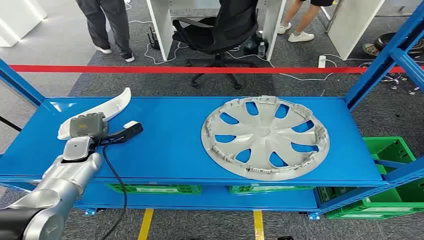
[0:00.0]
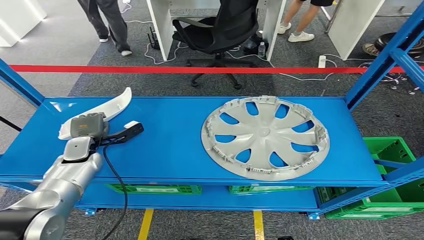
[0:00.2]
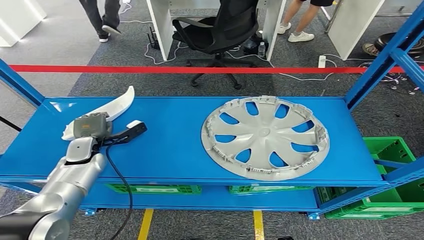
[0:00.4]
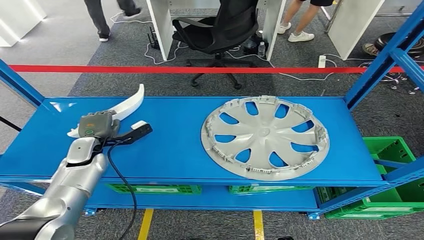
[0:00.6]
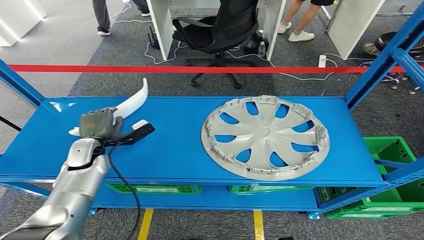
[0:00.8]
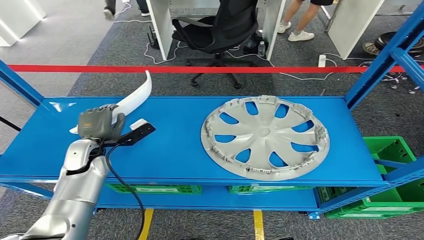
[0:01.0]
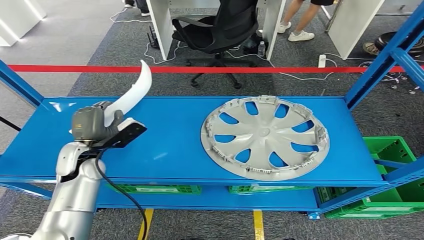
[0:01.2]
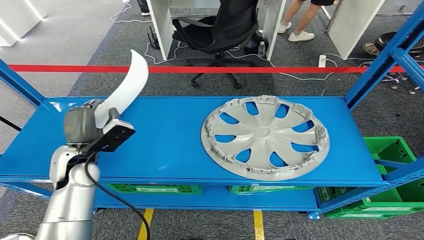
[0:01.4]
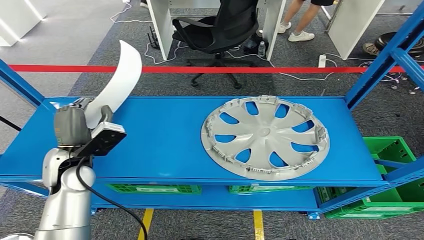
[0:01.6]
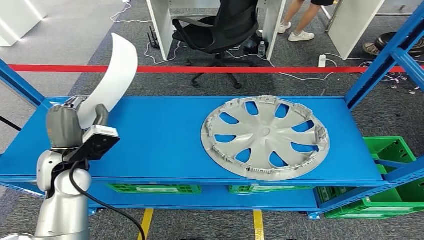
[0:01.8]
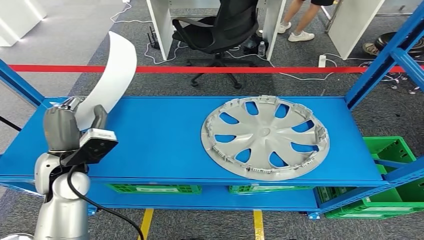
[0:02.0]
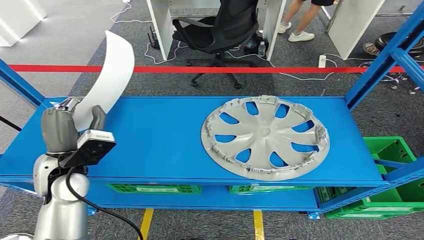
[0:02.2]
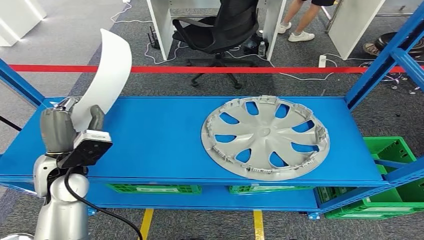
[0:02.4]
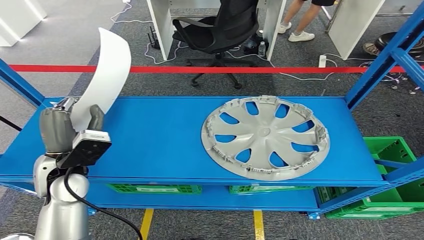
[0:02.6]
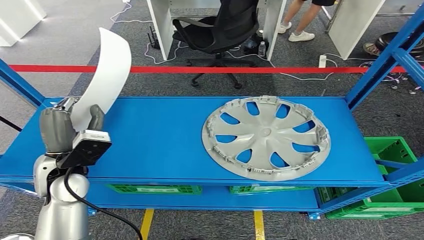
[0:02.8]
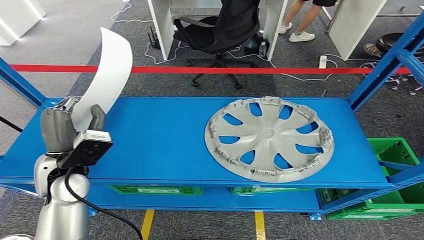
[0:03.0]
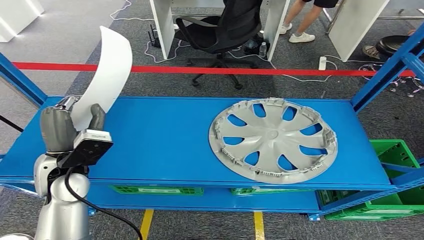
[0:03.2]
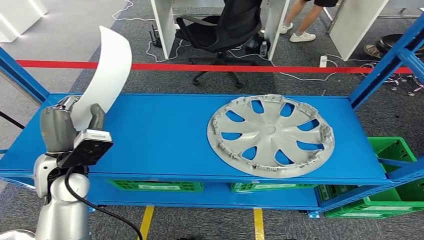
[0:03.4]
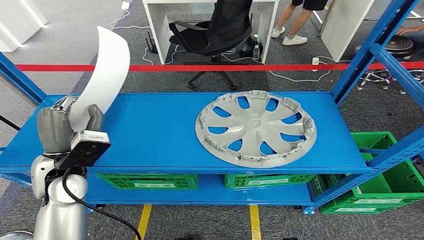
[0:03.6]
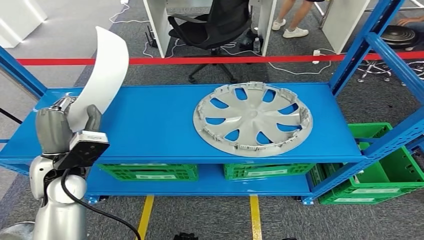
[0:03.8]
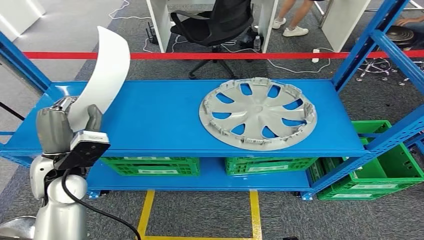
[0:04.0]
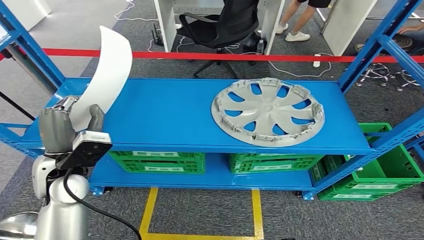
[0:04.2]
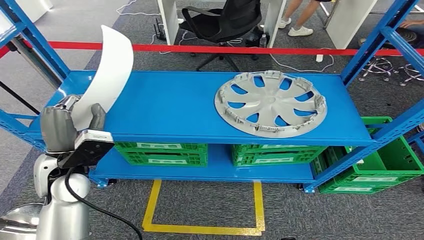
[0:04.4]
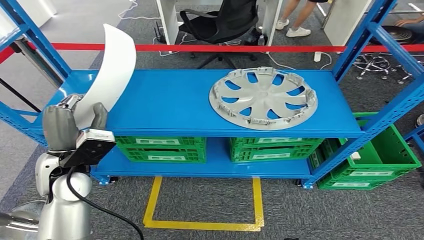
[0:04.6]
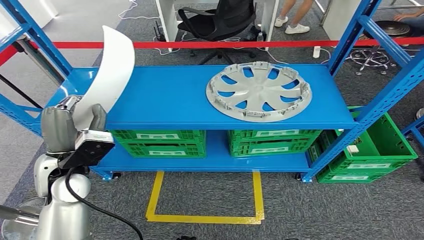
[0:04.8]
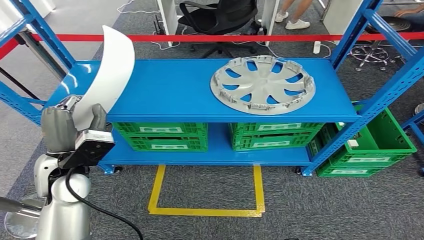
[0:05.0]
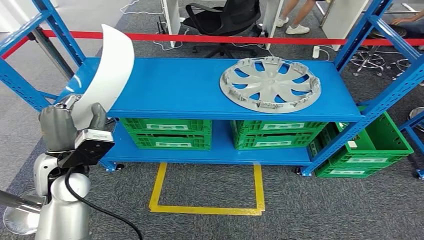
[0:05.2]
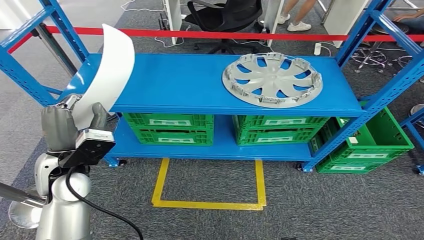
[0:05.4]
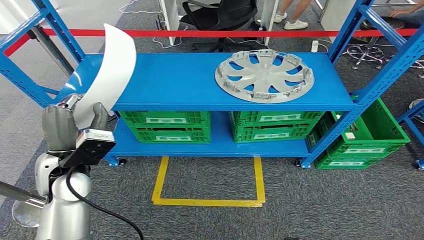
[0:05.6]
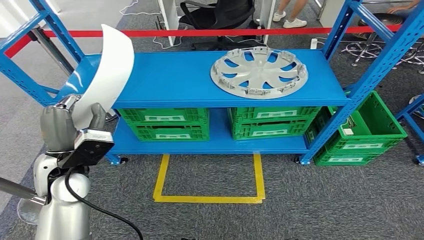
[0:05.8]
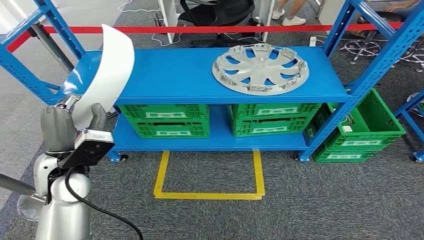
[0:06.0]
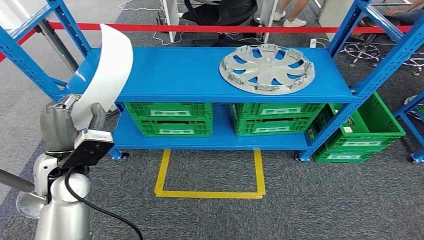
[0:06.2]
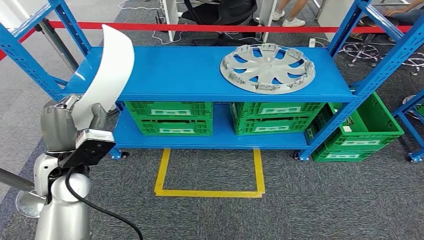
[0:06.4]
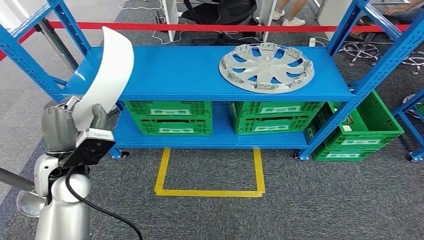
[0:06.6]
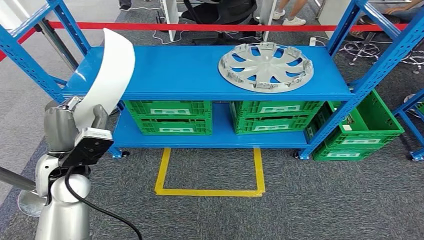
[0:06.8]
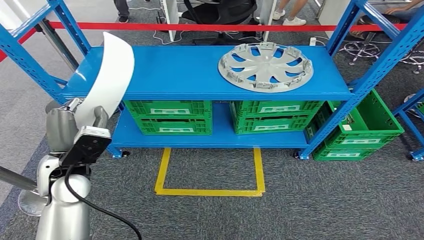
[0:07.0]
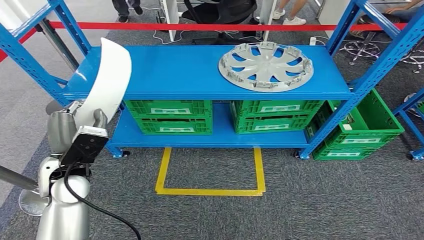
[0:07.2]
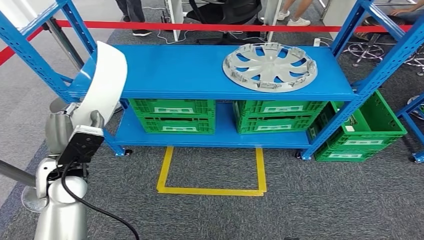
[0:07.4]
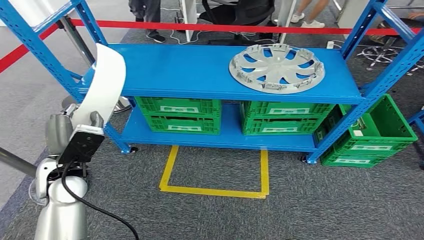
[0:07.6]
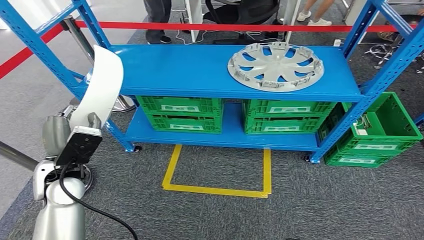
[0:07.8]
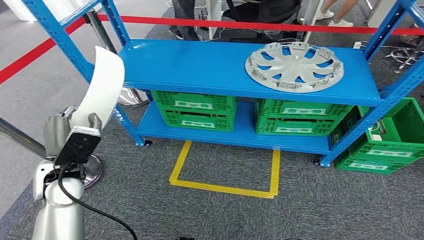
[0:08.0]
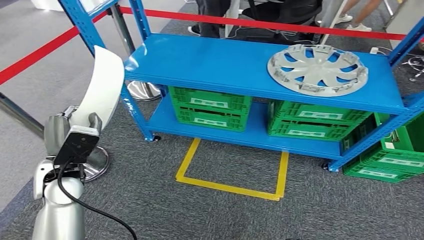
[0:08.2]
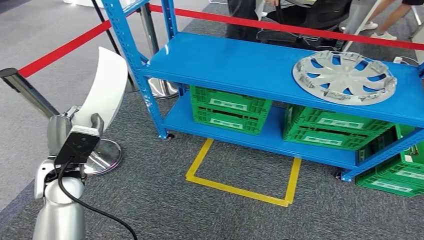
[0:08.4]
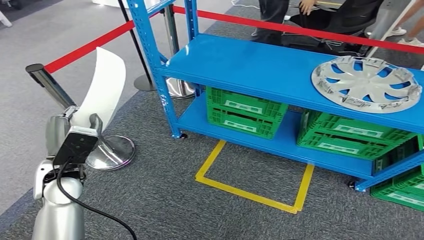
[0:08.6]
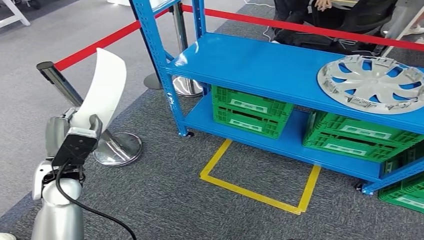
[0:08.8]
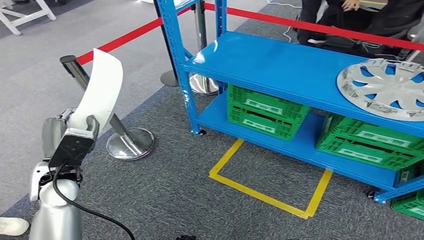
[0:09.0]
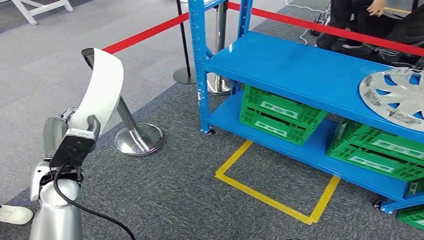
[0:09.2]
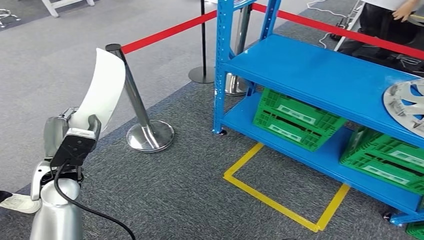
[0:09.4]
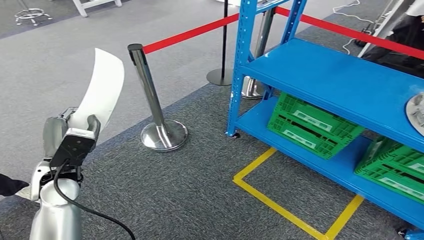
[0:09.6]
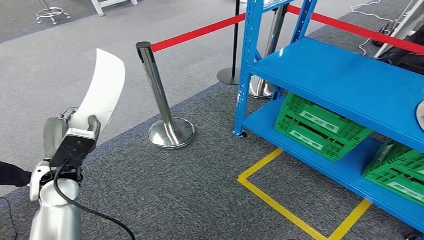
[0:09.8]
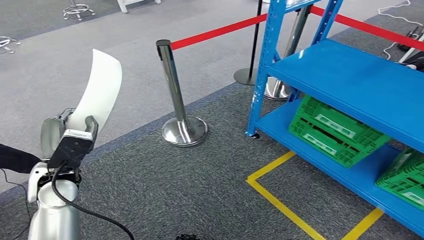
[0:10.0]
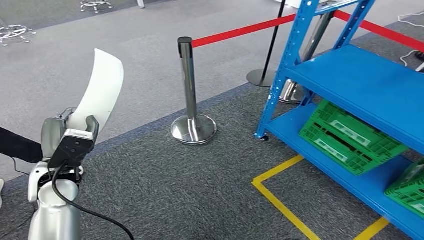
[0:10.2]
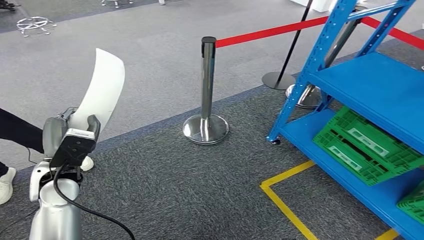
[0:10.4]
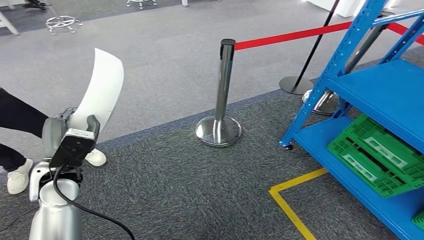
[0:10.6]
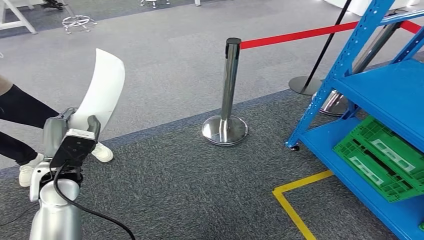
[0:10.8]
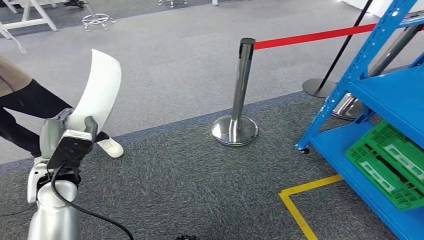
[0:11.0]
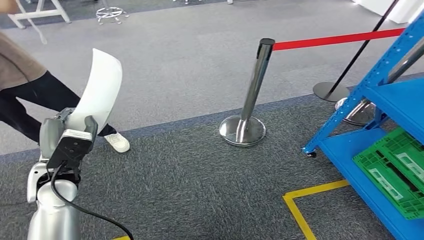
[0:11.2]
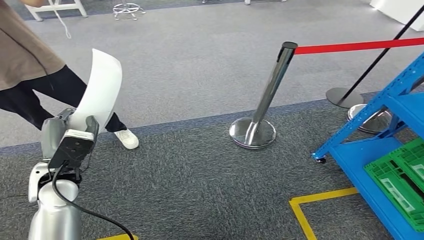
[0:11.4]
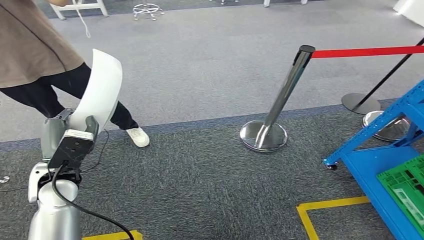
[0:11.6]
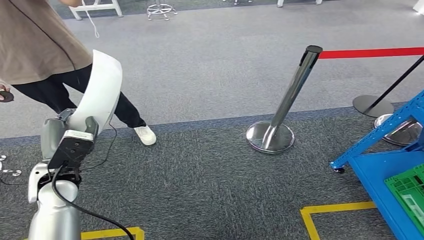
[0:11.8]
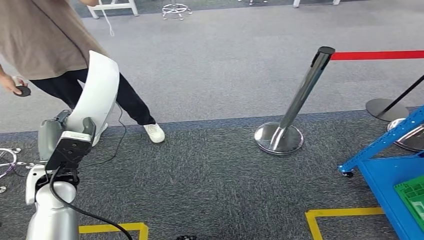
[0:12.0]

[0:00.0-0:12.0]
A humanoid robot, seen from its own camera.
Step, 0:00.0 to 0:06.8: Pick up the small component from the shelf.
0:01.6 to 0:03.0: There are only small adjustments of the hands.

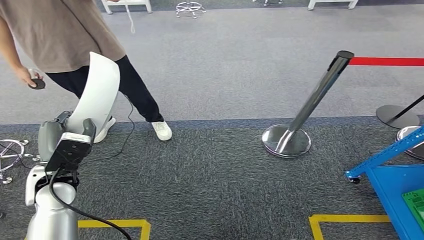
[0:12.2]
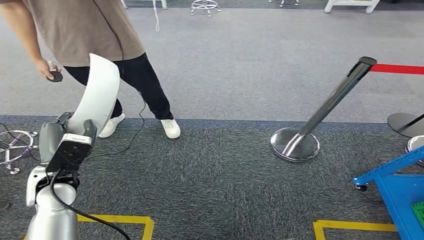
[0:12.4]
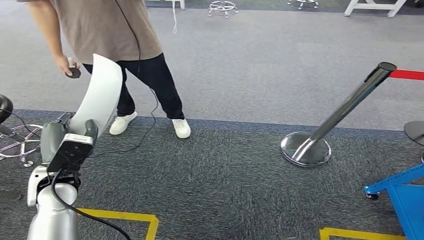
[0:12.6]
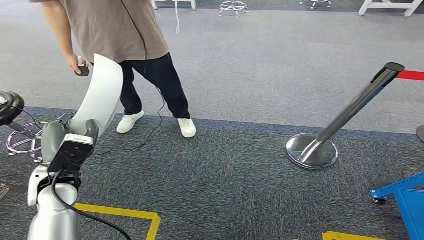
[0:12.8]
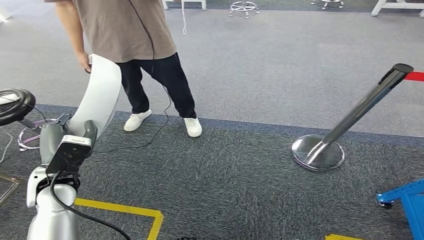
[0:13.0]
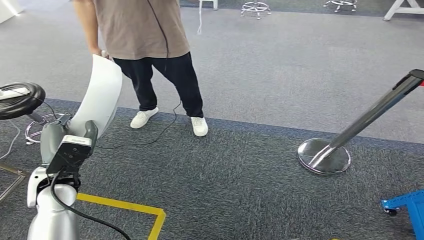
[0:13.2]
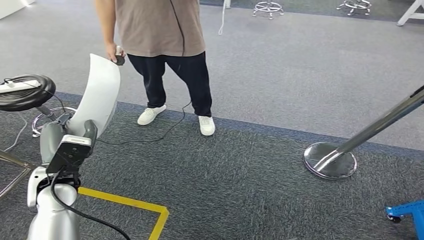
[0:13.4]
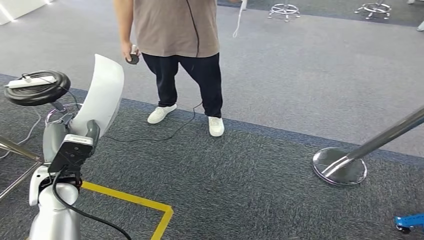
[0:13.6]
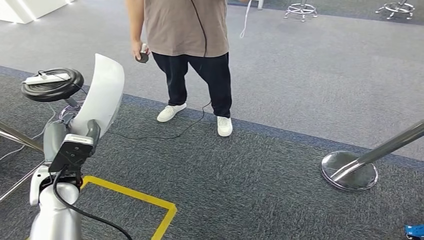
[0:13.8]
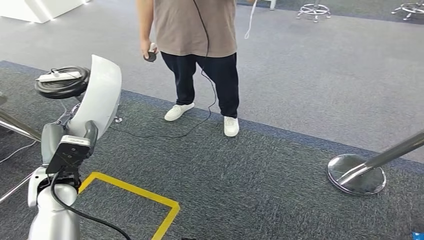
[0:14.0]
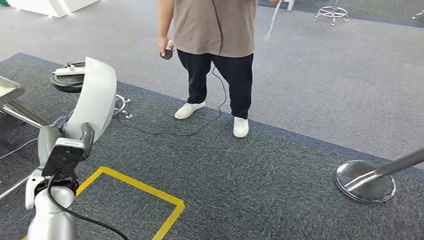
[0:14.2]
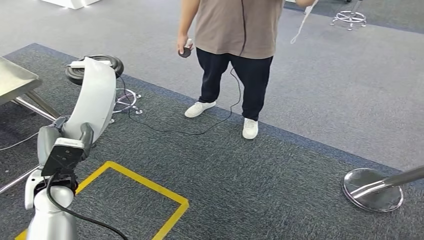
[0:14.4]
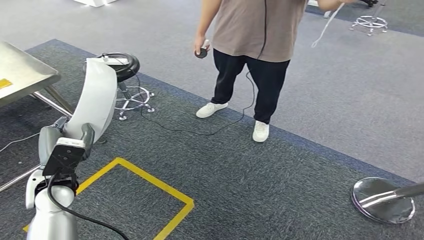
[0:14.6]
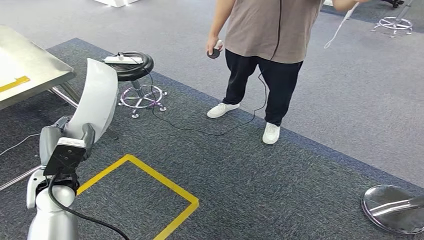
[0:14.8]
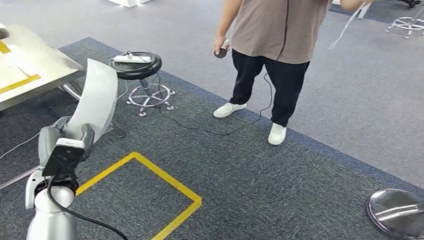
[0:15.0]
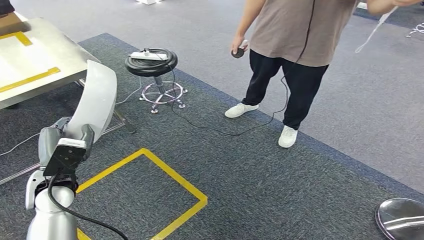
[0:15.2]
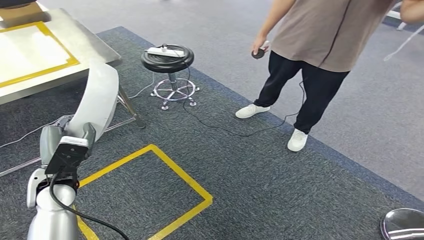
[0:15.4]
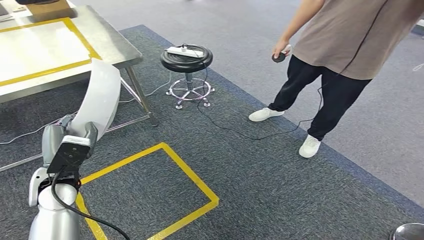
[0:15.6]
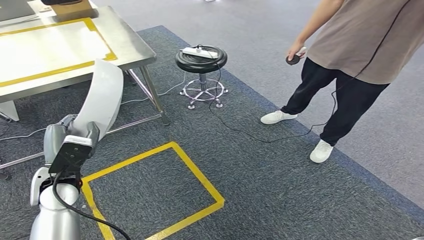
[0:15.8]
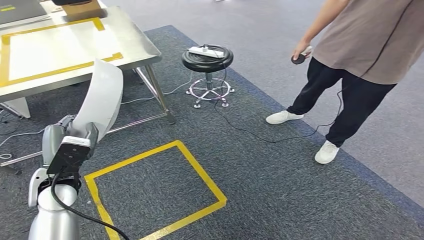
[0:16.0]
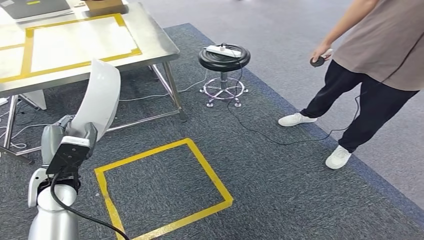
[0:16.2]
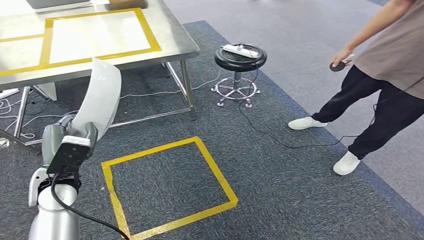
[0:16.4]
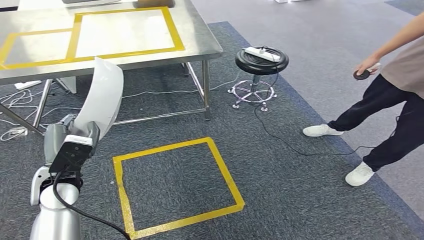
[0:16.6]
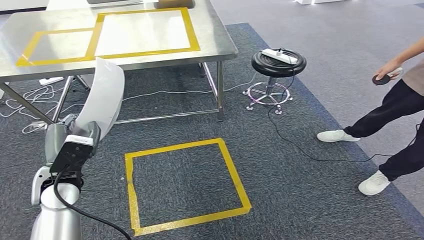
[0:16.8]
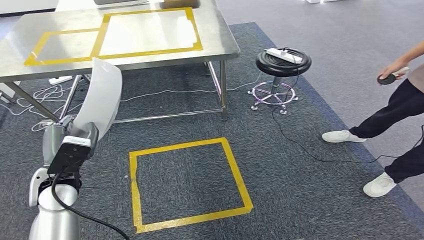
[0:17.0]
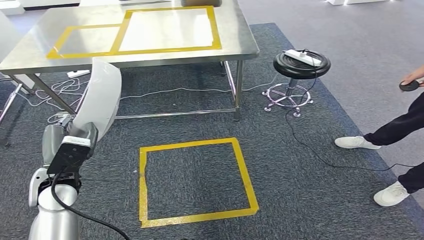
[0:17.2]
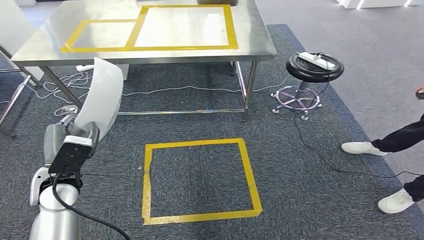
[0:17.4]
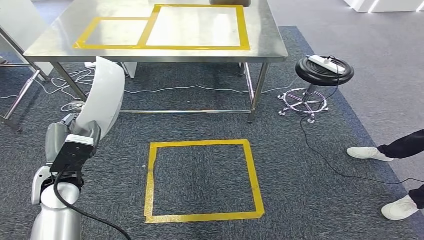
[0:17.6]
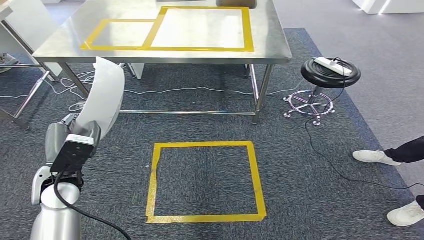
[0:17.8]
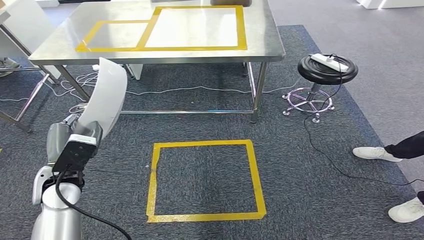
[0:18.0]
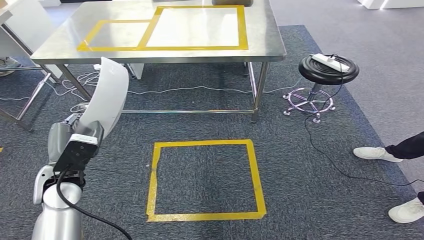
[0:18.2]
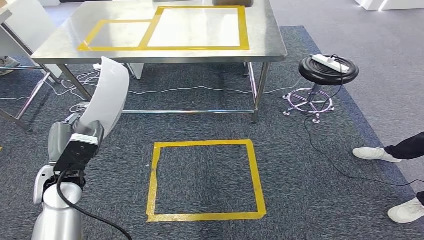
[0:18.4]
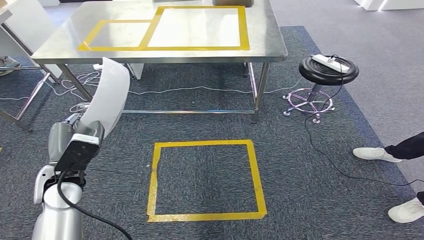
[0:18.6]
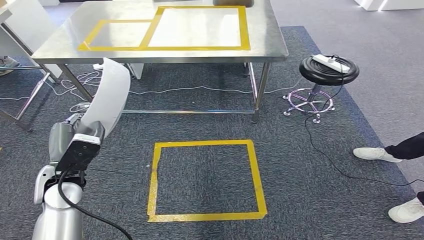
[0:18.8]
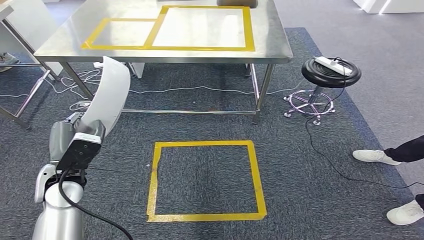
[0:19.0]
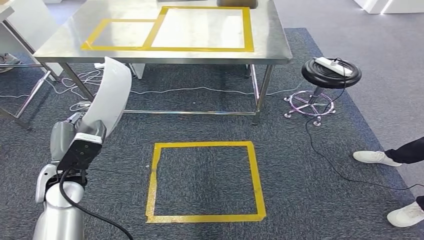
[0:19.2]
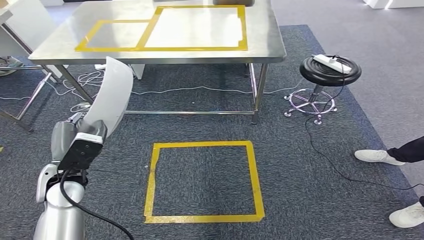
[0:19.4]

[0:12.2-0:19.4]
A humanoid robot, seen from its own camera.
0:18.0 to 0:19.4: Neither hand changes place.
